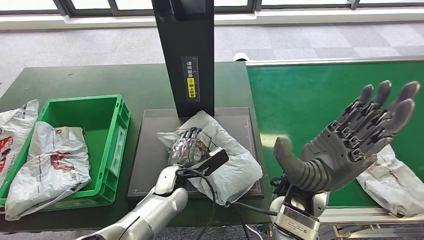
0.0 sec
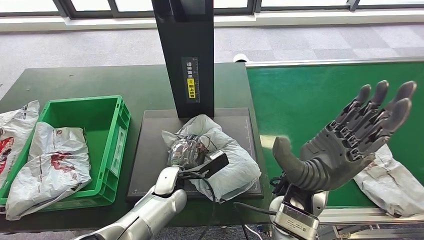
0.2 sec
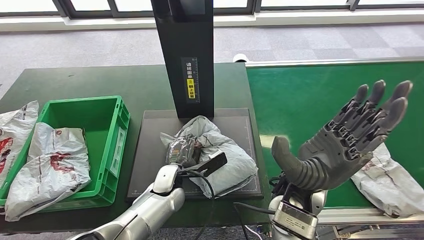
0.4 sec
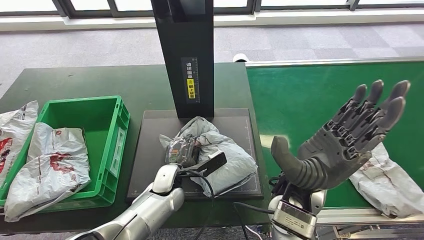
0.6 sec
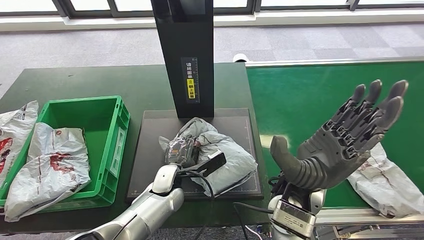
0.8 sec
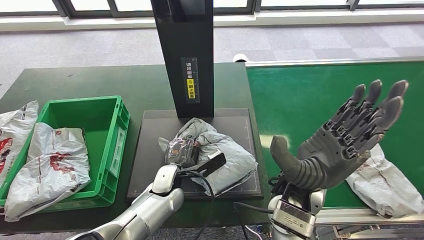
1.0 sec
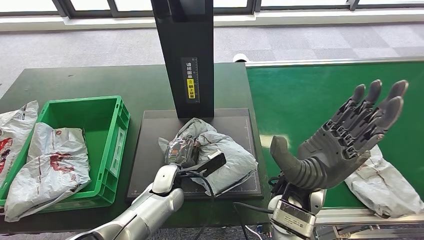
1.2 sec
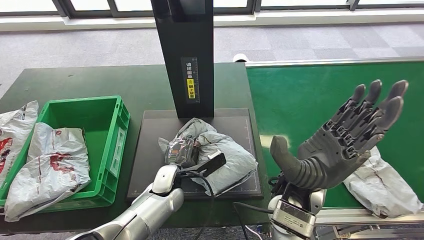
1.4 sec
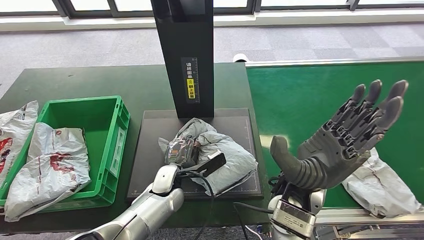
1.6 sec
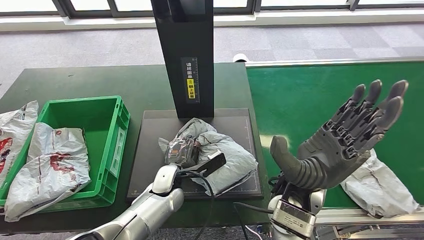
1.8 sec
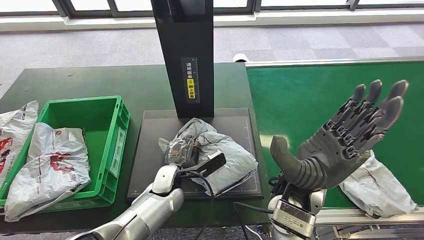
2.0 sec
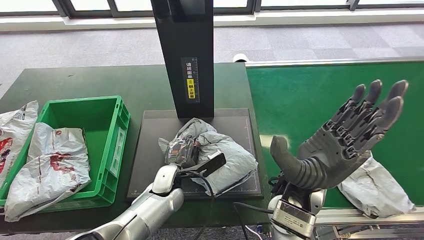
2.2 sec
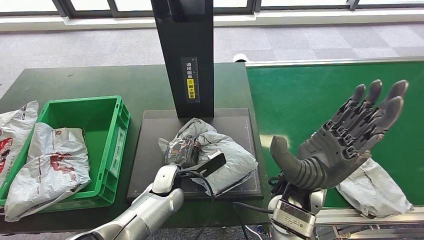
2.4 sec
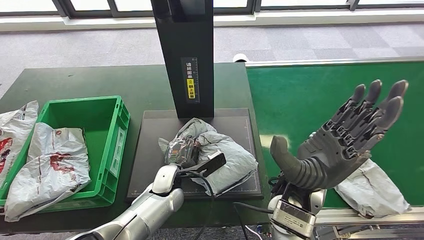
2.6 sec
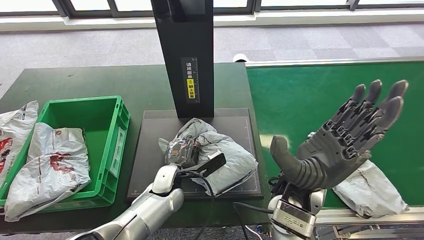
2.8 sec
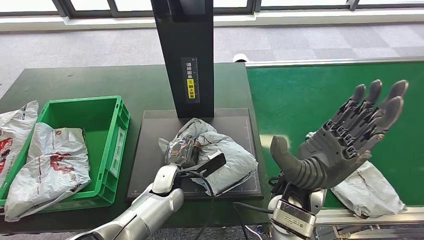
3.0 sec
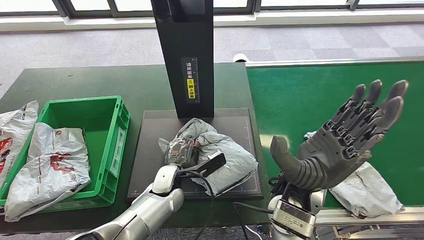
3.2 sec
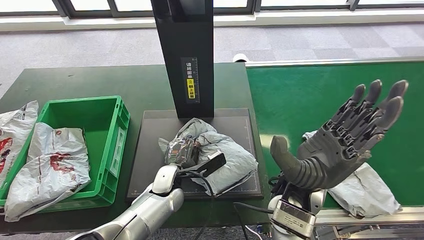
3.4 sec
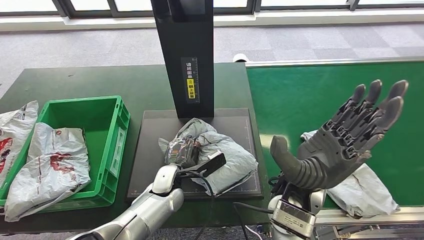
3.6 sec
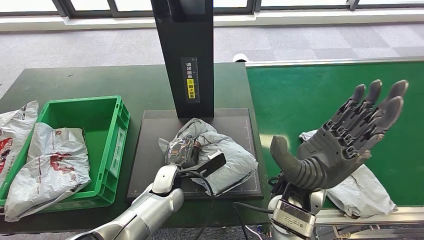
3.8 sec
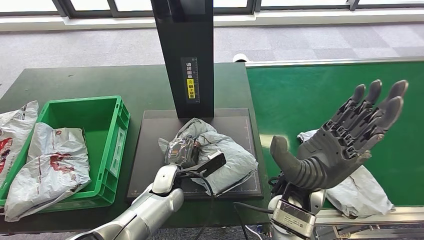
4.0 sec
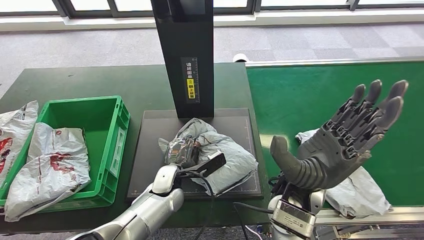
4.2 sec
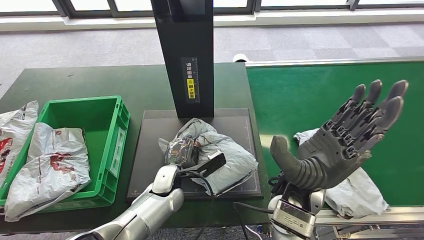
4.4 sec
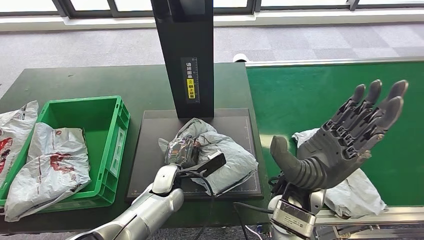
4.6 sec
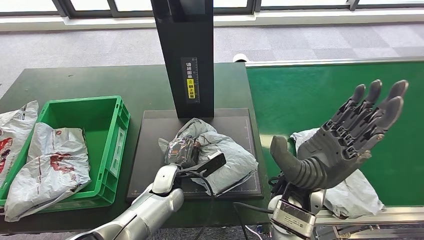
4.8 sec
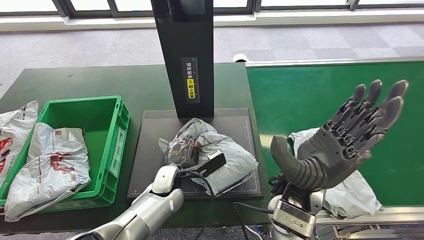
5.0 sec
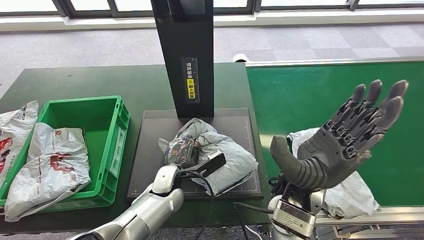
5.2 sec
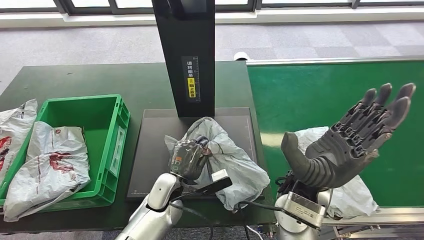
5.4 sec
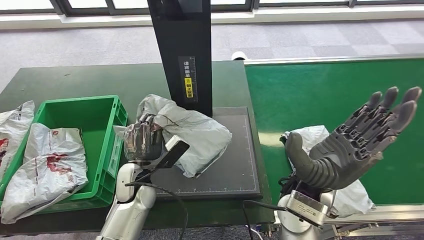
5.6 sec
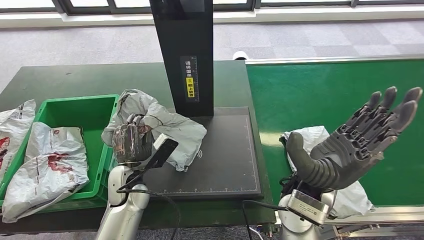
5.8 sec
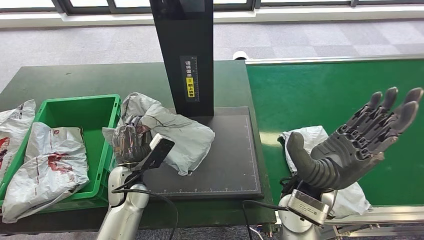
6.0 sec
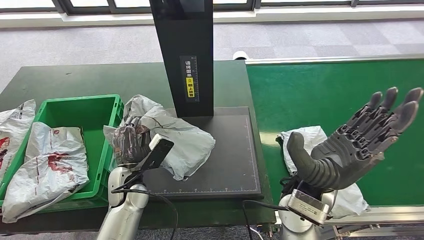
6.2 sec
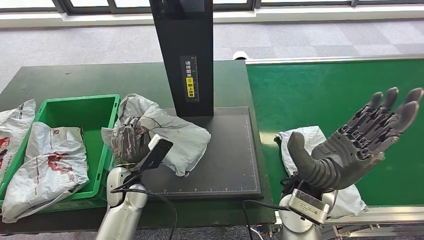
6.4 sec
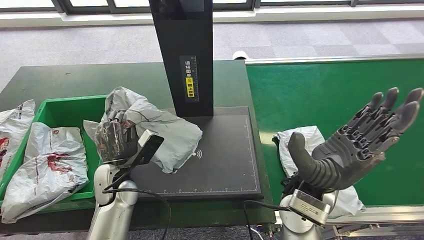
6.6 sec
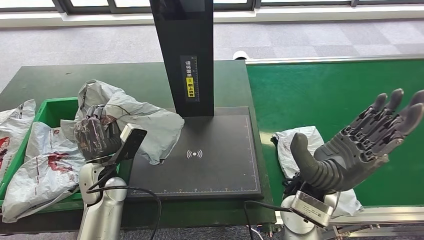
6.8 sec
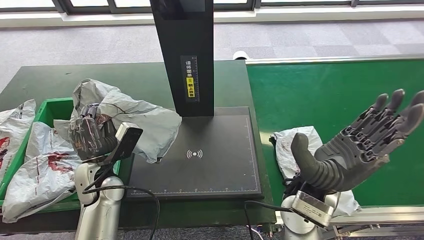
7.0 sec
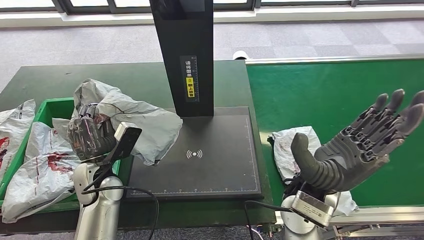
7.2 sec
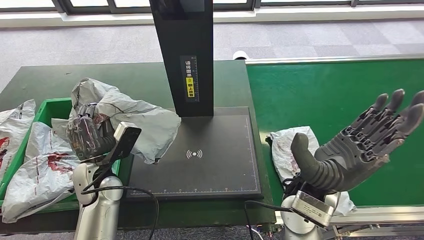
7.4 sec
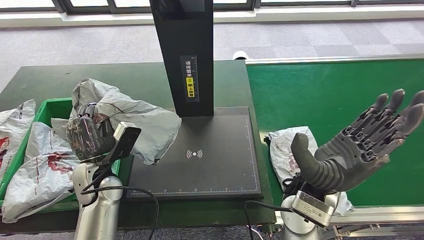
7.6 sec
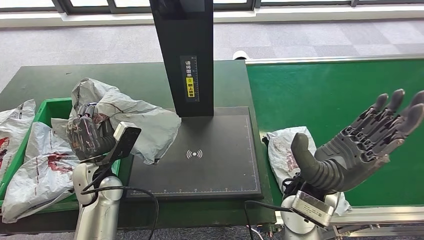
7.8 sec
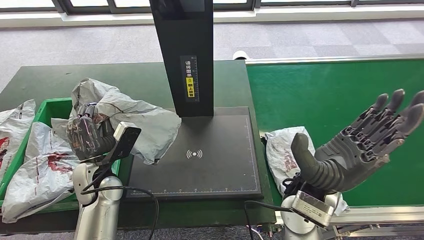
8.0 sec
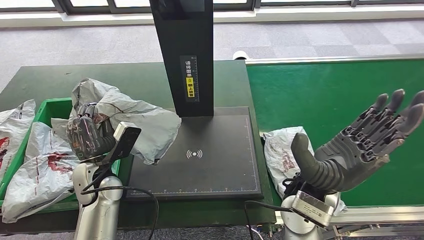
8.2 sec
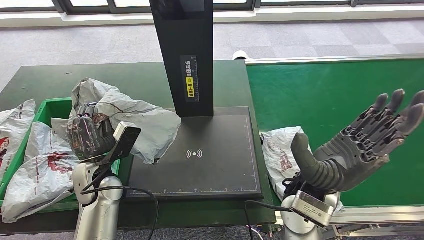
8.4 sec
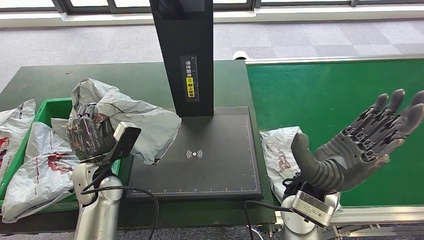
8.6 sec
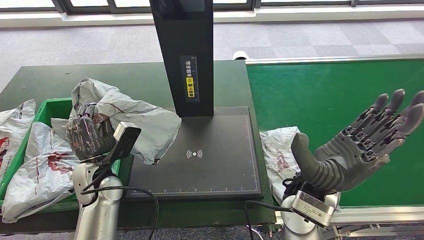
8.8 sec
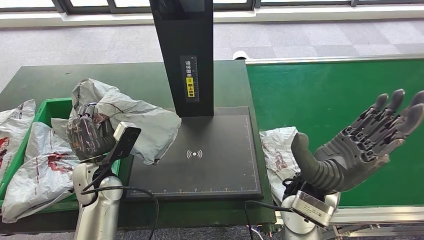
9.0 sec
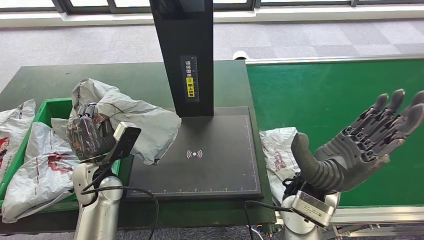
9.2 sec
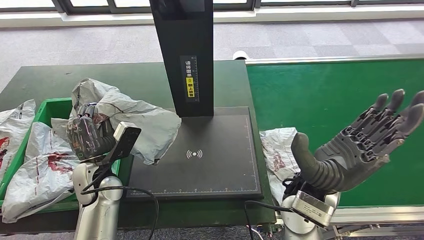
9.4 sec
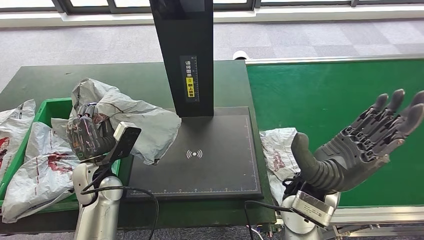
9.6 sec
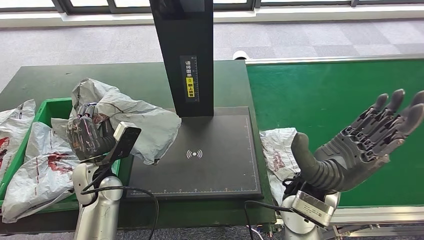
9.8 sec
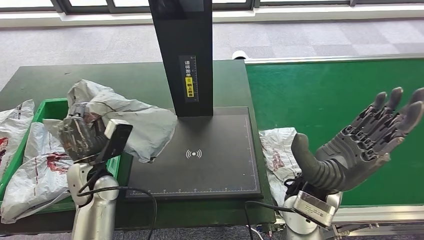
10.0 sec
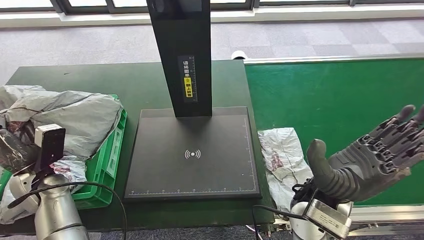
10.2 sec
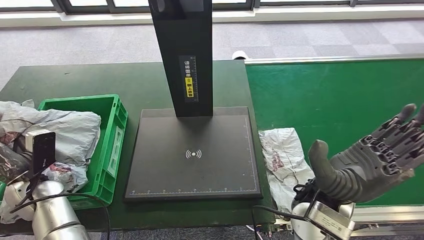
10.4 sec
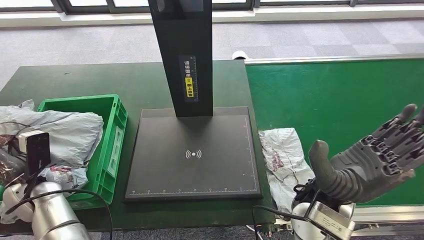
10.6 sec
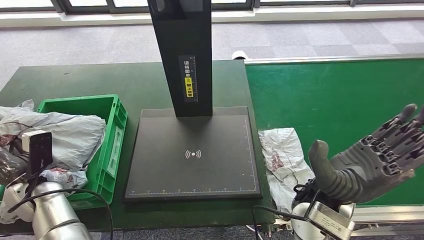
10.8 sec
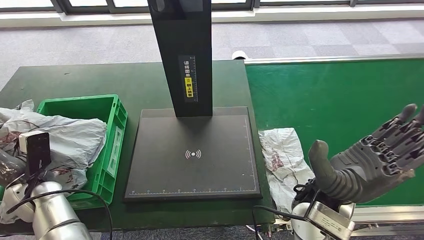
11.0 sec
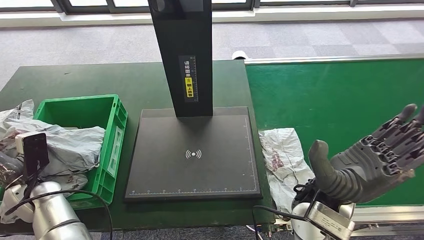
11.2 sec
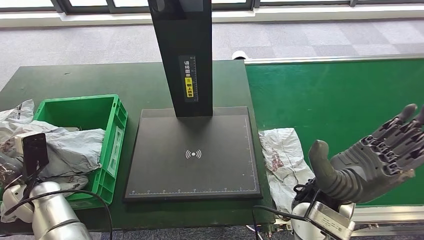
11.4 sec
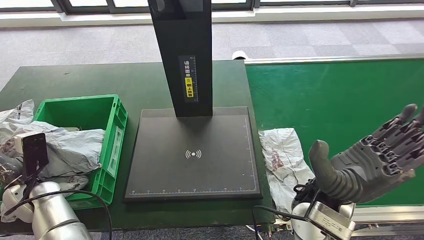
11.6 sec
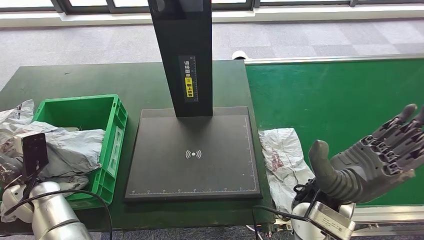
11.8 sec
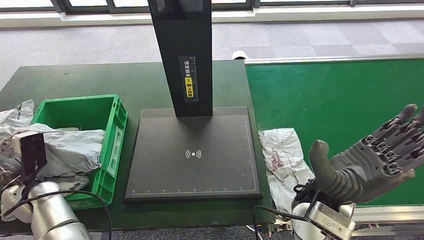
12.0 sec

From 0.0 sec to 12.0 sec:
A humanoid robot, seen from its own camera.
Step, from 4.4 sec to 7.0 sec: Pick up the parcel from the inbound machine.
From 1.6 sec to 4.4 sec: Both hands stay put.
From 6.0 sec to 7.6 sec: The left hand is displaced to the left by approximately 5 cm.
From 7.6 sec to 9.0 sec: Neither hand changes place.
From 10.4 sec to 12.0 sec: The hands move only a little.

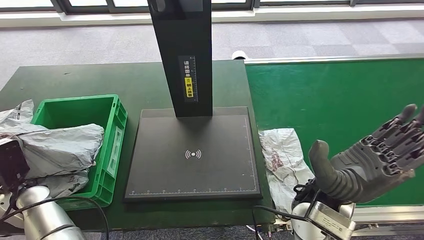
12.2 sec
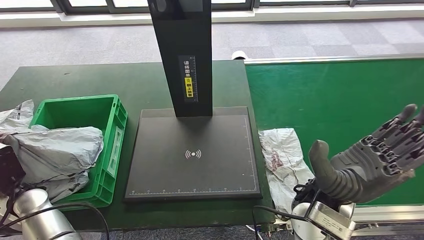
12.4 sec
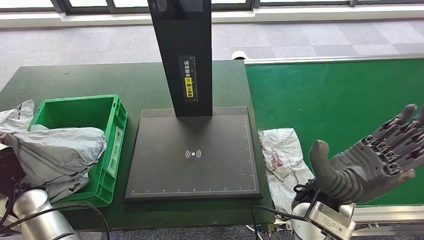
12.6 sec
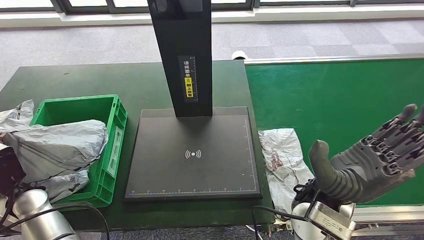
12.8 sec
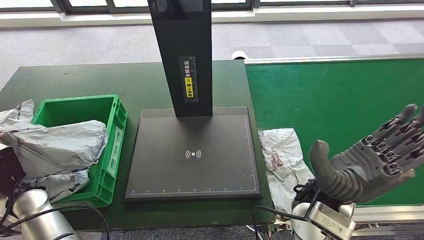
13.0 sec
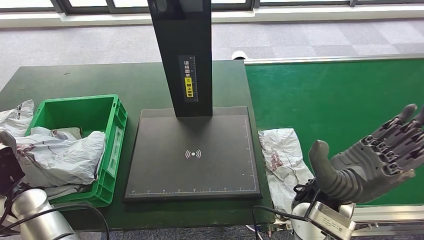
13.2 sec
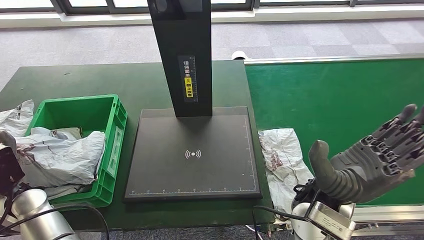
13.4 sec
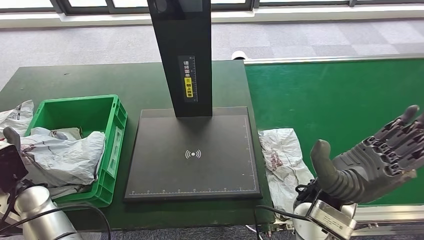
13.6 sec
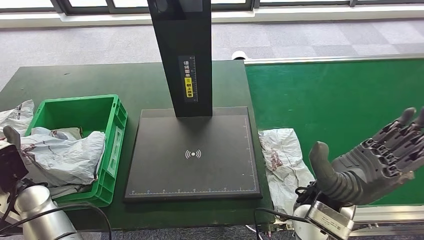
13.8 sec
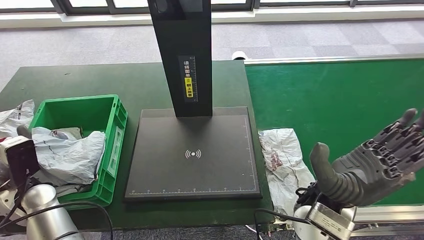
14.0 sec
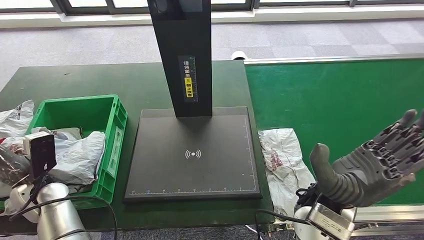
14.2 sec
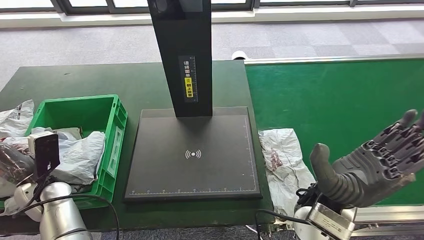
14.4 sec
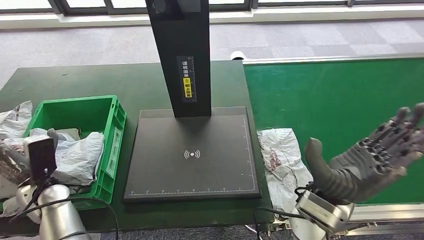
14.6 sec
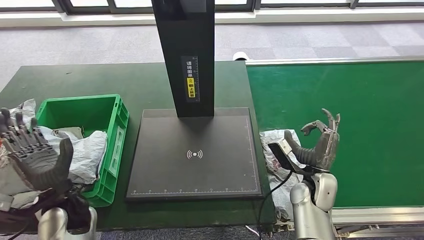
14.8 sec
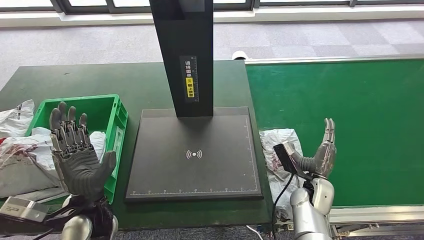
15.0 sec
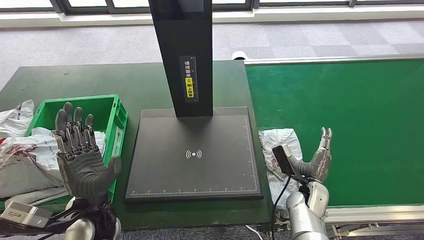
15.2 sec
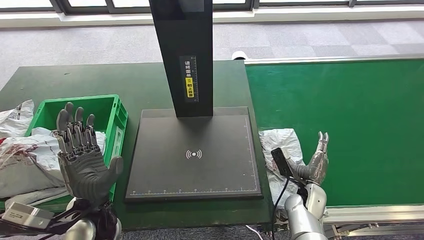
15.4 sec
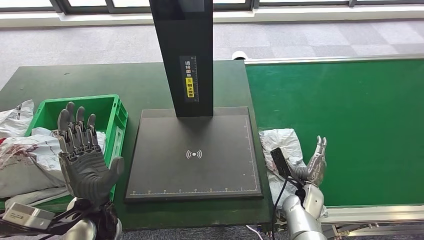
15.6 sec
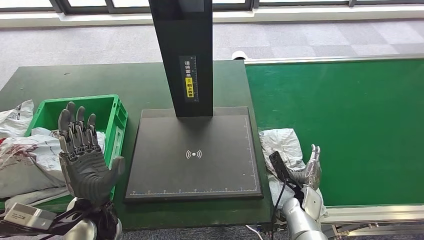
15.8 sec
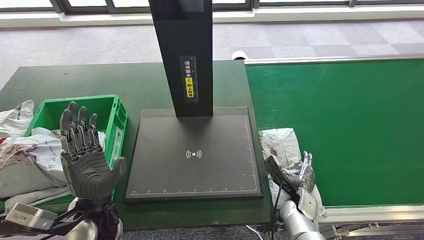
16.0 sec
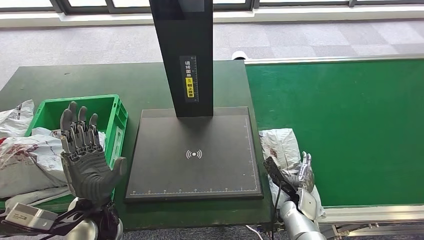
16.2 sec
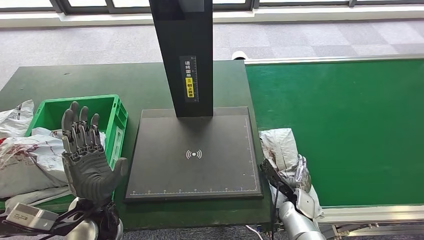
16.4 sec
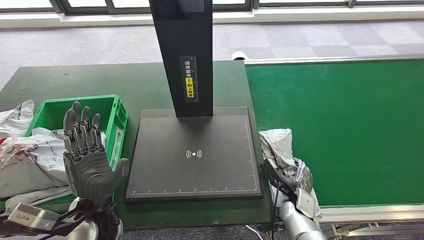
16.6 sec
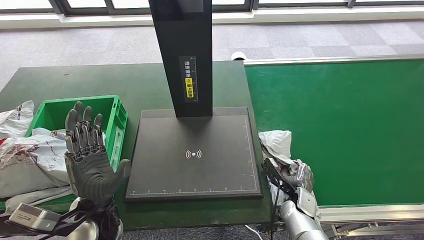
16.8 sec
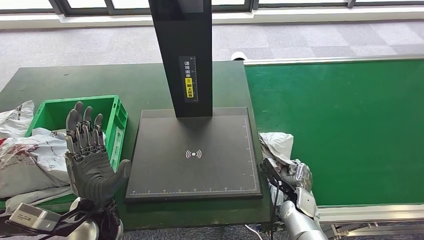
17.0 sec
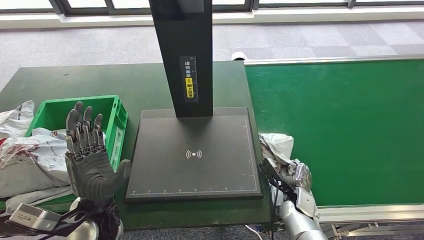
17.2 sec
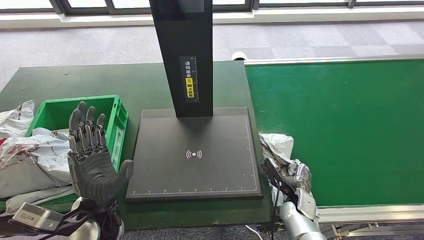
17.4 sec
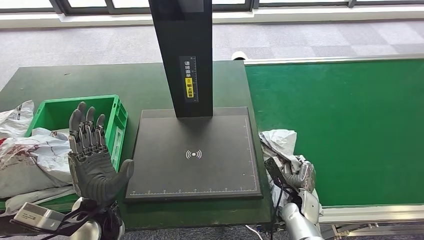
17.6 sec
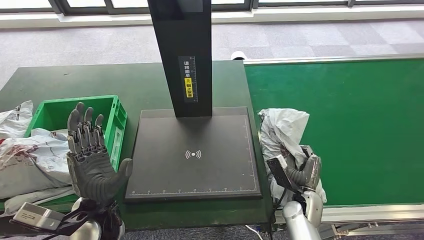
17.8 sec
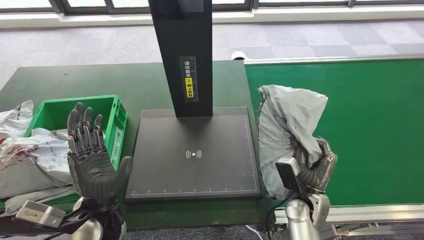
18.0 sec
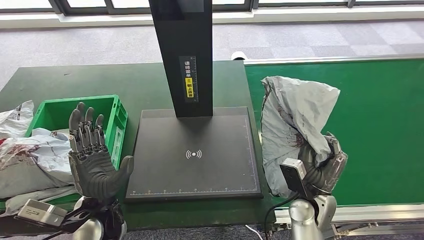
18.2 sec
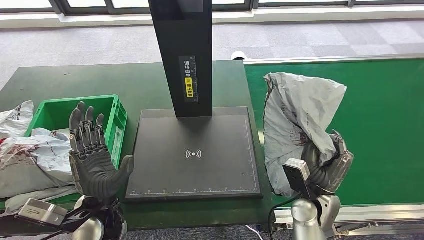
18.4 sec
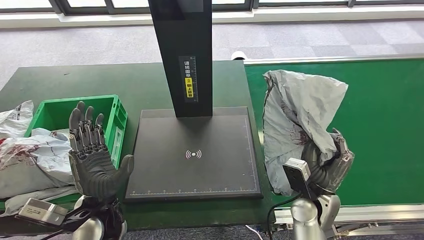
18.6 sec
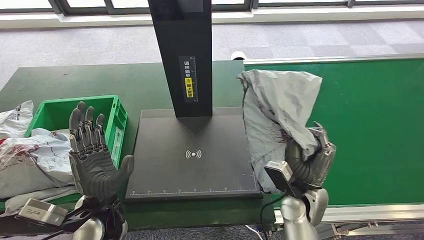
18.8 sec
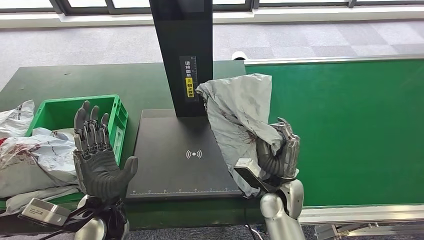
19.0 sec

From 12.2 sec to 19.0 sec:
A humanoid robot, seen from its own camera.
From 12.2 sec to 13.6 sec: There are only small adjustments of the hands.
From 13.6 sec to 15.0 sec: The right hand shifts approximately 20 cm downward. The left hand goes approximately 15 cm to the right.
From 15.0 sec to 16.2 sec: The right hand is displaced downward by roughly 5 cm.
From 16.2 sec to 17.6 sec: The hands stay close to where they were, moving slightly.
From 17.6 sec to 19.0 sec: The right hand moves upward and to the left, about 15 cm.
